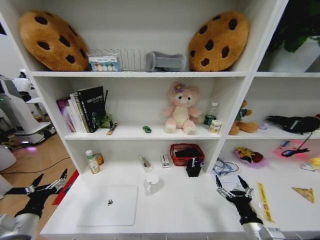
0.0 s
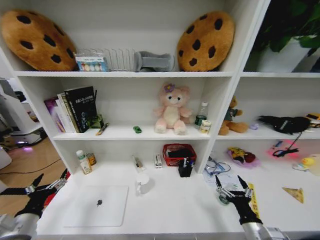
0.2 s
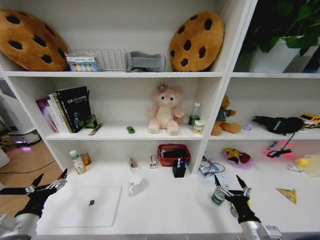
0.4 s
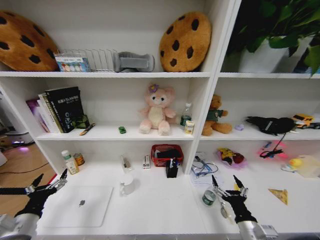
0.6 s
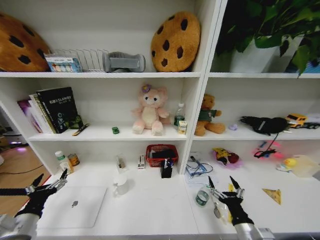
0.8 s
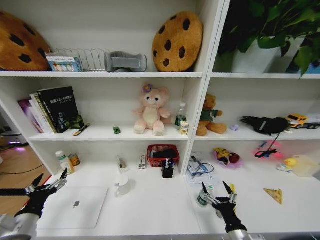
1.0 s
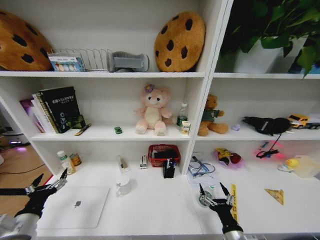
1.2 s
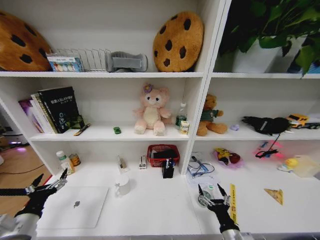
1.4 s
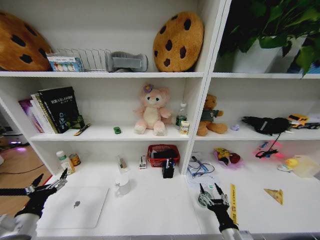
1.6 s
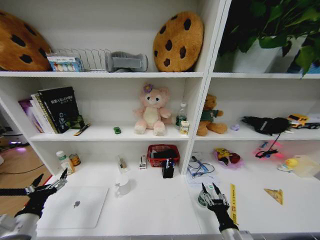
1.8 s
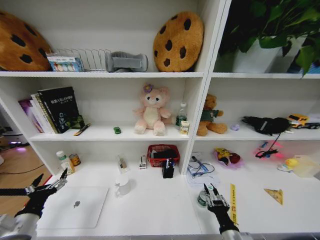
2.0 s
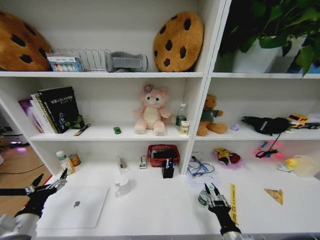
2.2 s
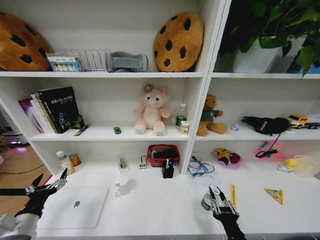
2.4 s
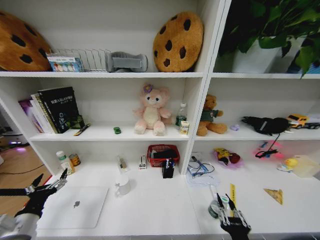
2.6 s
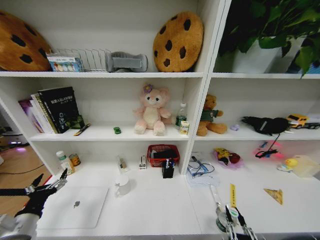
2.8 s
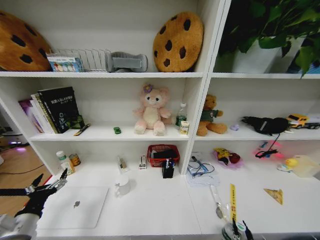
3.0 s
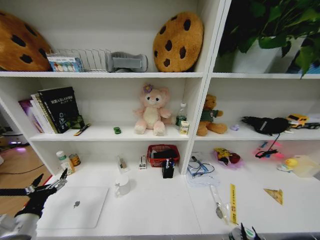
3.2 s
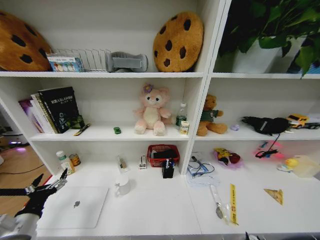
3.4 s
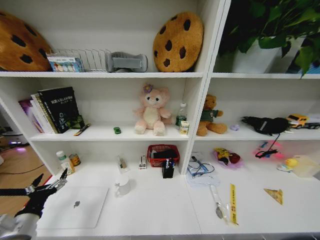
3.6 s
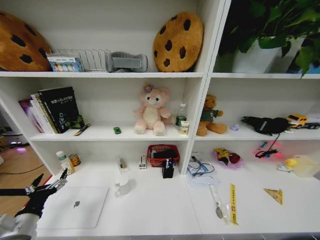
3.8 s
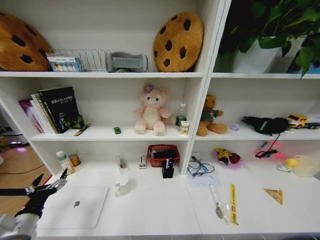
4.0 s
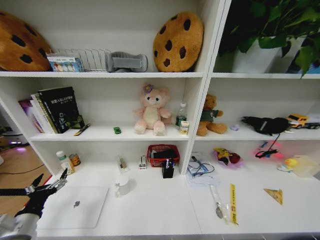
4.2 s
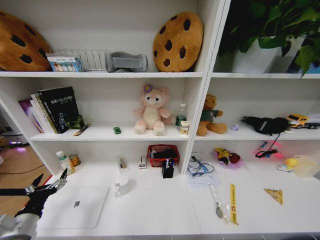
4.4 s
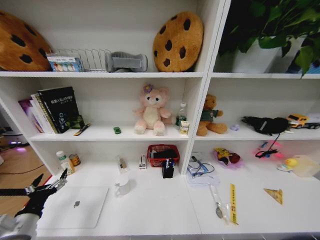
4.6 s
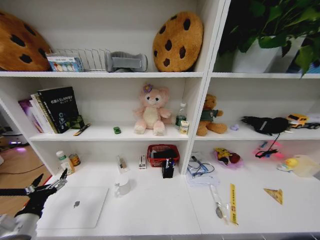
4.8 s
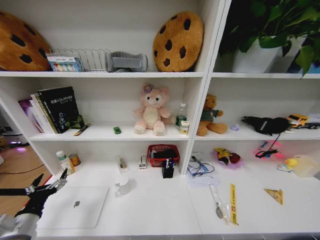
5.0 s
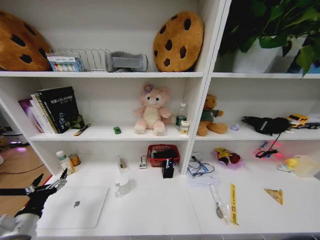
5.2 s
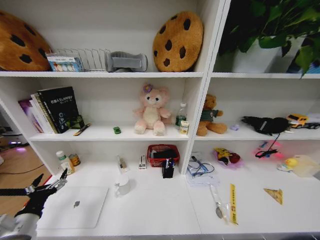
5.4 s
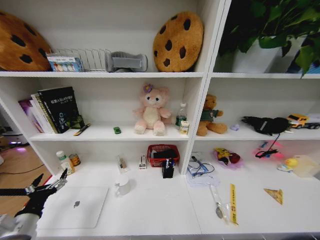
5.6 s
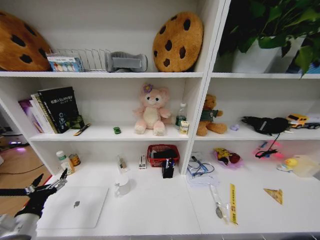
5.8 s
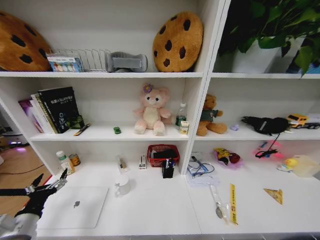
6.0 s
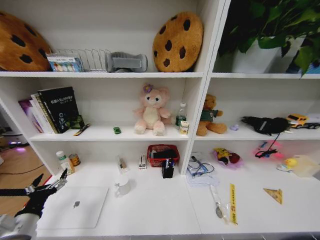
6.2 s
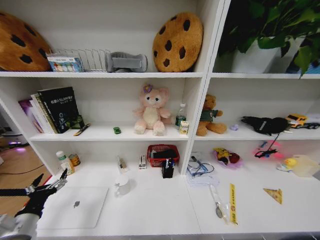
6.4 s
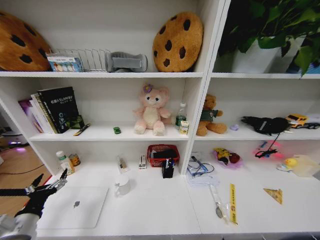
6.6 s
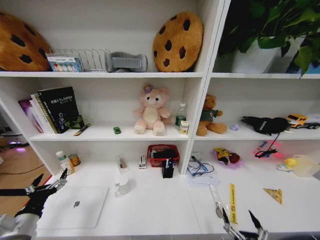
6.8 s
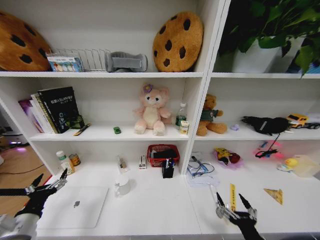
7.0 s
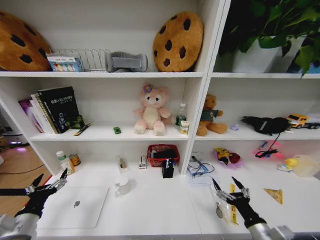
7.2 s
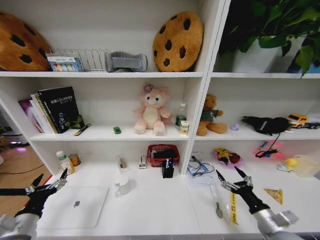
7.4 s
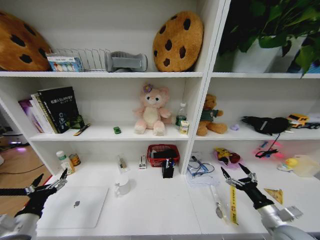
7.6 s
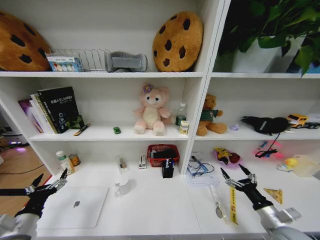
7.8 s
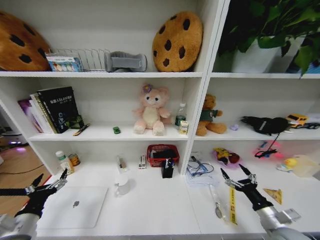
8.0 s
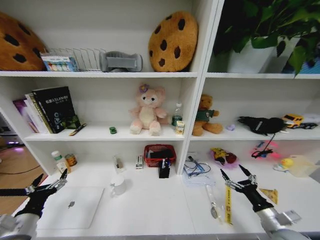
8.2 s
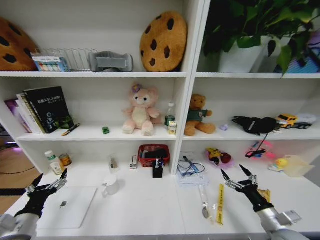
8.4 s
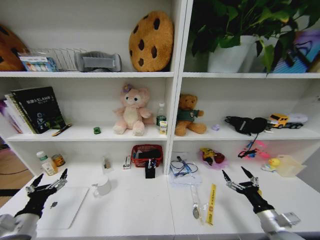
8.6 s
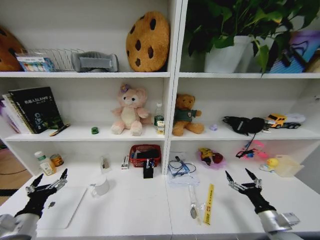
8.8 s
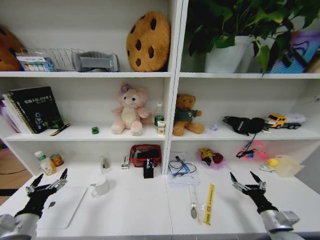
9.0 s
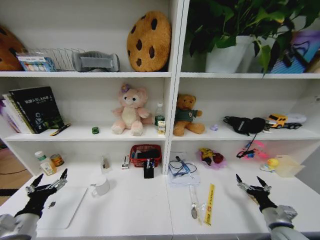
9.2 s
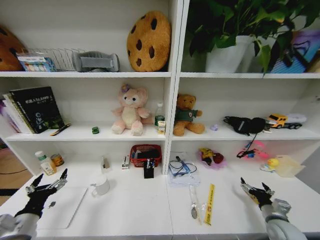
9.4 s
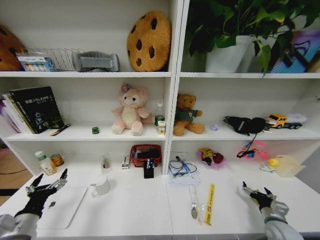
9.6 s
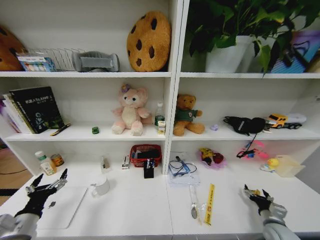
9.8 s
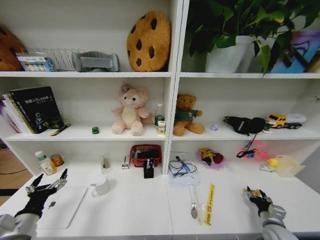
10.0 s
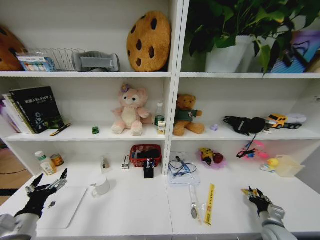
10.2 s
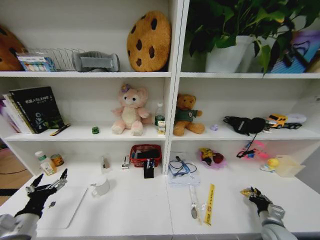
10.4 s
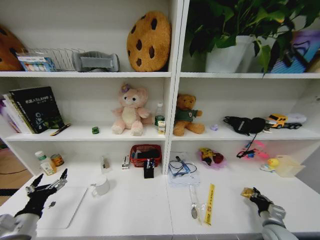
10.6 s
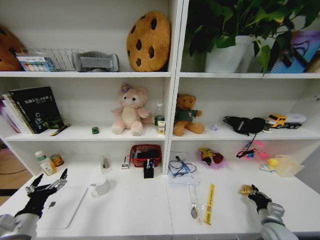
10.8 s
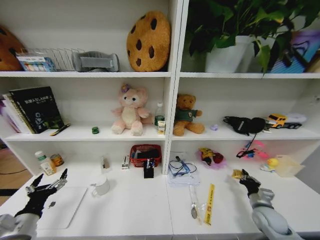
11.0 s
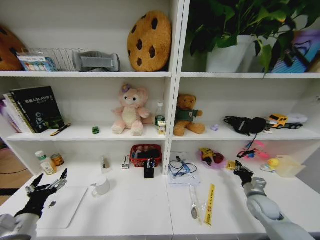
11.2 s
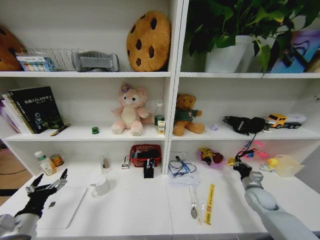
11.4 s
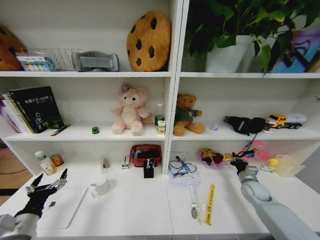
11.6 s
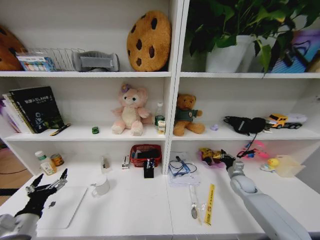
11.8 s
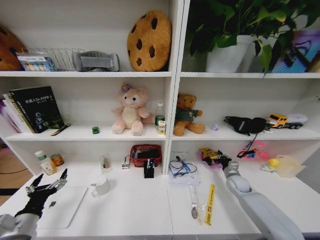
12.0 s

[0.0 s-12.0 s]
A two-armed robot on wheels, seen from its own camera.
Task of the whole recording: Organize the objects on the table.
0.0 to 1.6 s: The right gripper heads to the left, covering some 5 cm.
1.6 to 3.0 s: The right gripper goes about 15 cm backward, and closes its fingers.
3.0 to 4.4 s: The right gripper heads downward, covering approximately 20 cm.
6.0 to 7.6 s: The right gripper goes approximately 40 cm upward, forward and to the right.
9.0 to 10.4 s: The right gripper goes approximately 5 cm downward, and closes up.
10.4 to 12.0 s: The right gripper travels forward by about 20 cm.

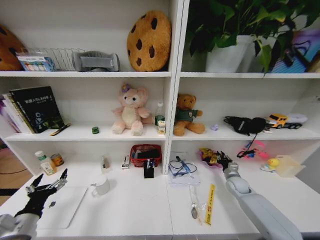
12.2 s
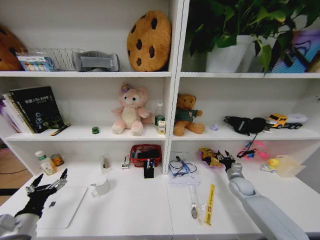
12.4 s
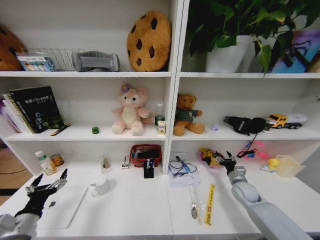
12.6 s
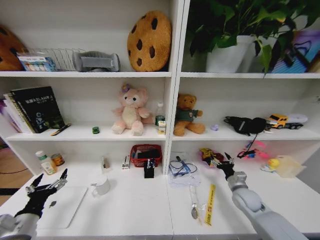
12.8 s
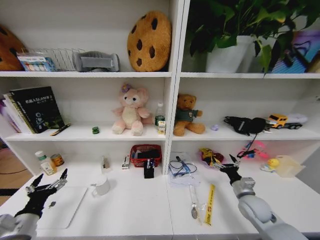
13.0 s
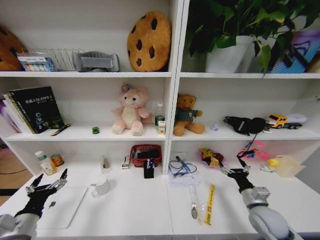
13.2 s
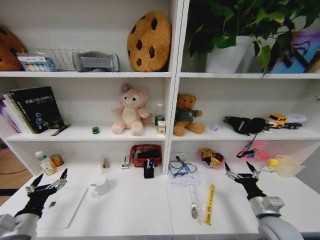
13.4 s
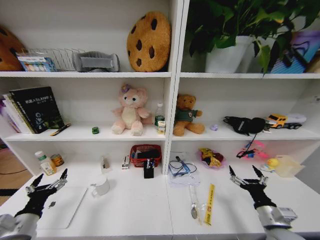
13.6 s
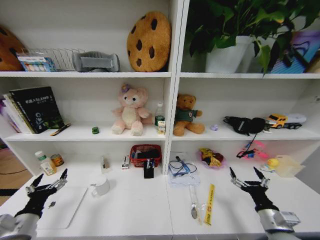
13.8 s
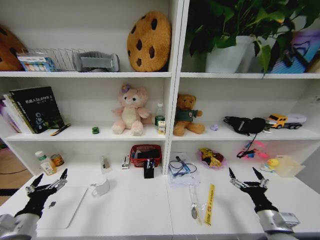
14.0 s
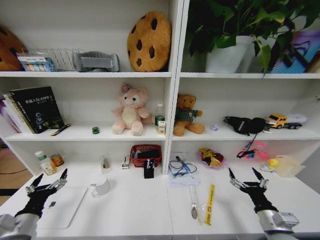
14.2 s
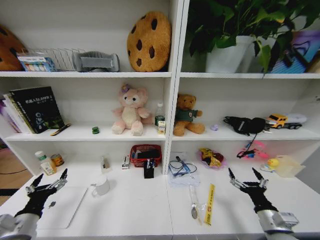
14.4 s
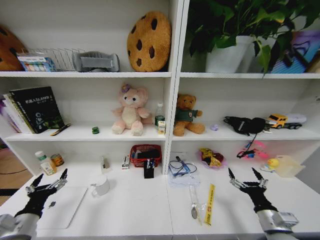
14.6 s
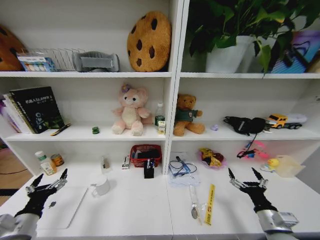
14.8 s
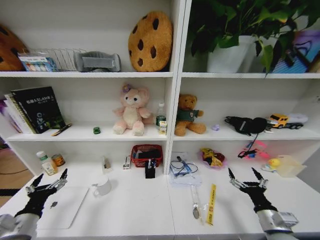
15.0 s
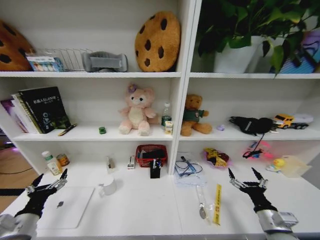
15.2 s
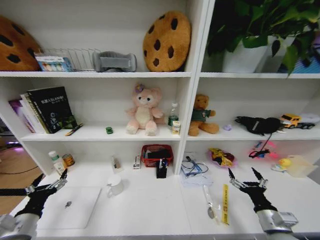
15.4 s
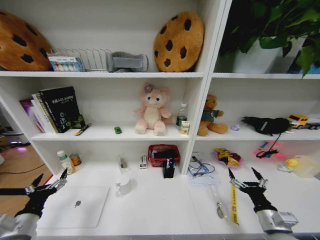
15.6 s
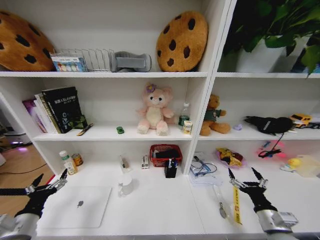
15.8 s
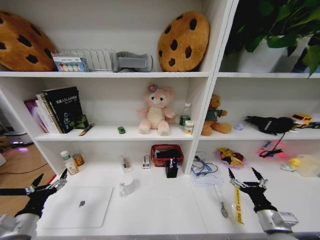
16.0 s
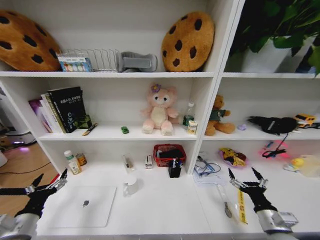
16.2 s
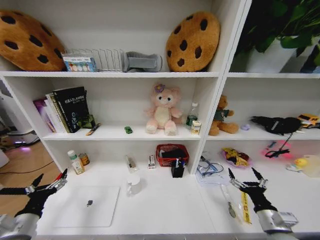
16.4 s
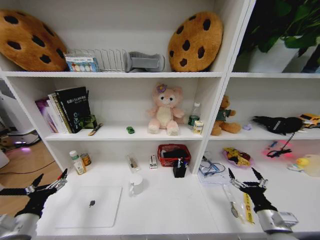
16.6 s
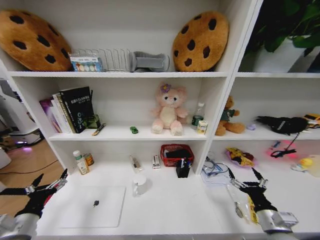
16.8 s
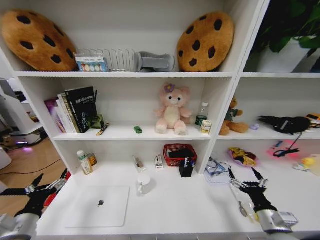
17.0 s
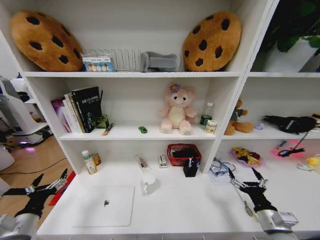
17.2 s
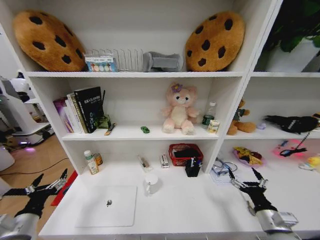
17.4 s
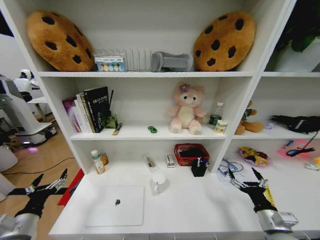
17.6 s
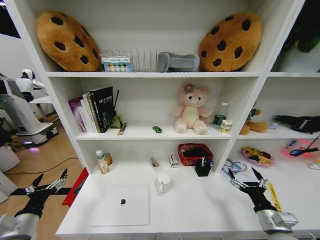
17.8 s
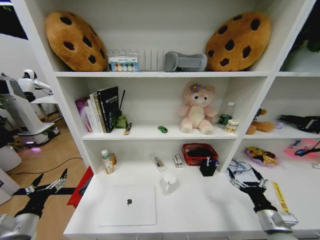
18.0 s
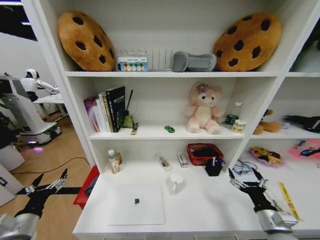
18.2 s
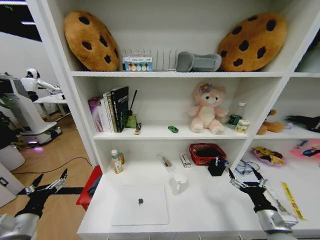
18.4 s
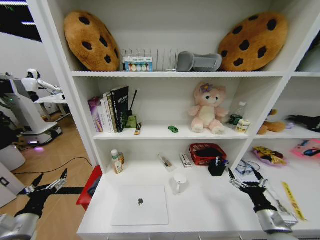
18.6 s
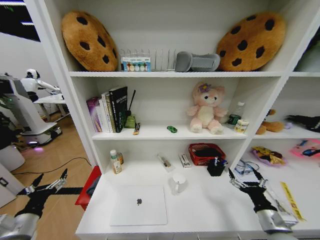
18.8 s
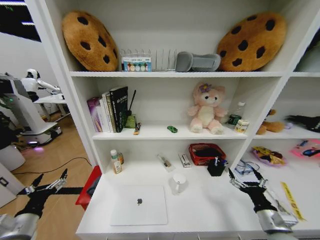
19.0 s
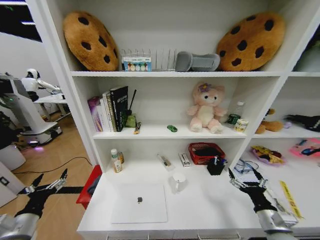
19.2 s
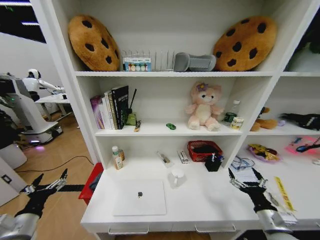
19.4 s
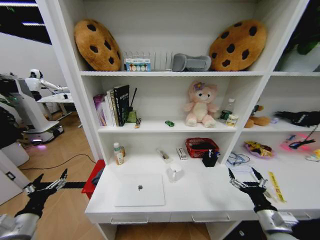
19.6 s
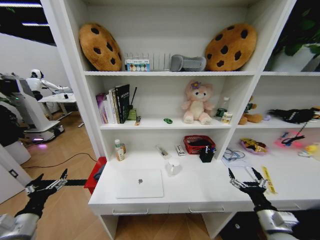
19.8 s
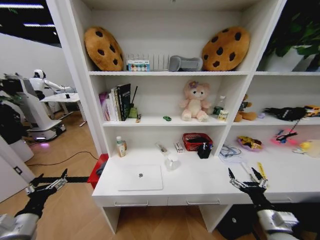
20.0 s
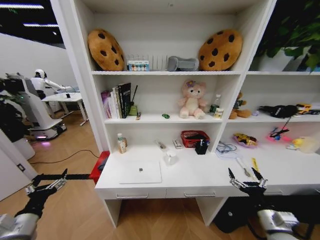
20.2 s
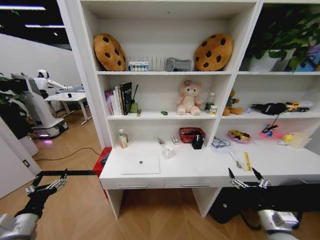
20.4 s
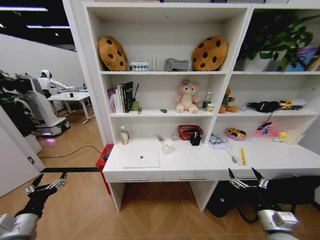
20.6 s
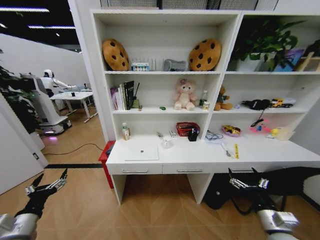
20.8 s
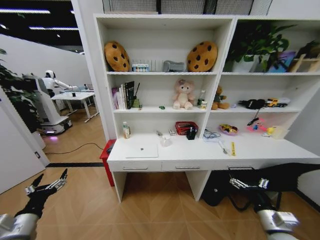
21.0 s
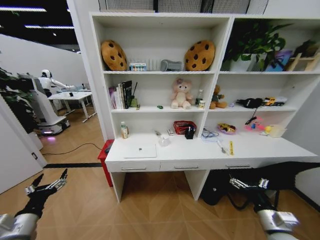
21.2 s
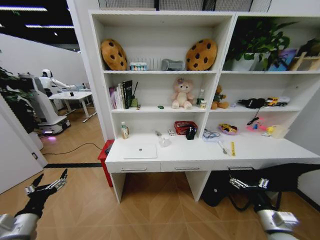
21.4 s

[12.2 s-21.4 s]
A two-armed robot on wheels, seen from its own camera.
Task of the whole recording: Organize the objects on the table.
12.2 to 13.8 s: The right gripper moves backward, roughly 25 cm, and opens.

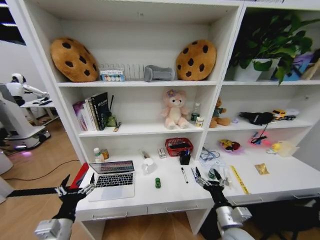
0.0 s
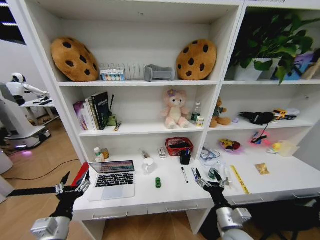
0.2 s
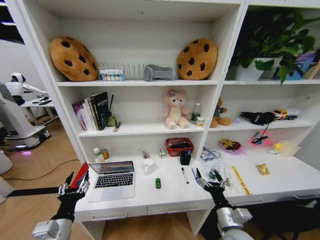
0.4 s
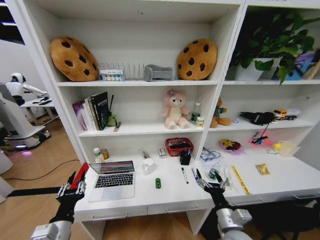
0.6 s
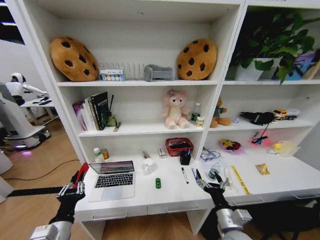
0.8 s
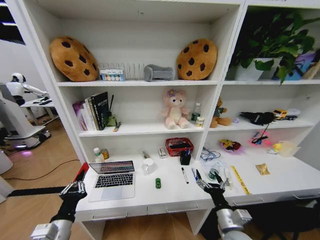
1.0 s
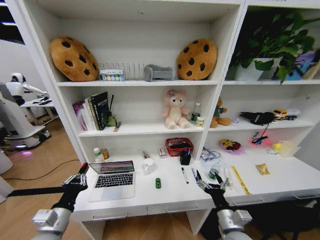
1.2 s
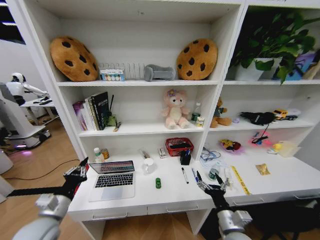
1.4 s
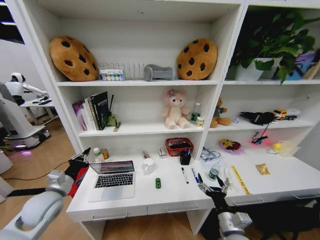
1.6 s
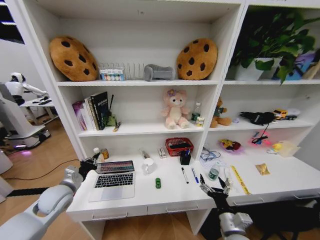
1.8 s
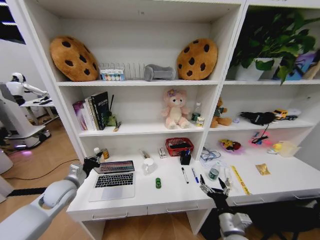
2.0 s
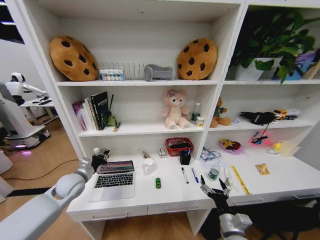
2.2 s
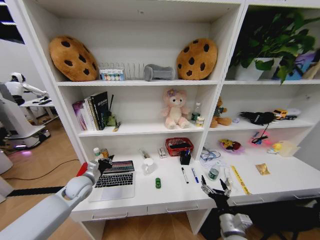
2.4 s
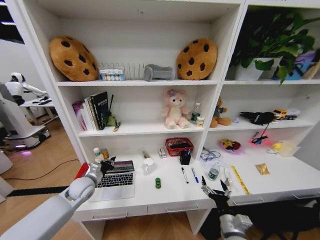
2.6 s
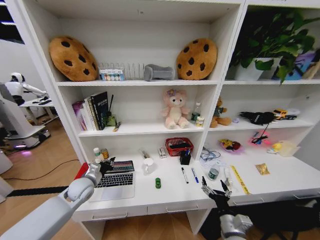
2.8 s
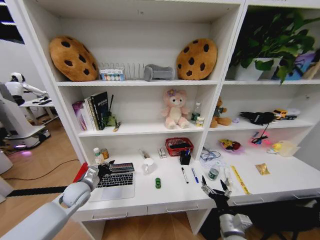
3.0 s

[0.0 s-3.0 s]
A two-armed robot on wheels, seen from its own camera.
Task of the whole recording: Organize the objects on the table.
0.0 to 1.6 s: The left gripper shifts some 15 cm forward and to the left, and closes its fingers.
1.6 to 3.0 s: The left gripper is displaced forward and downward by roughly 10 cm.
